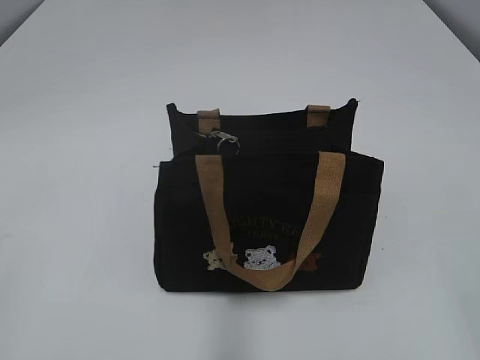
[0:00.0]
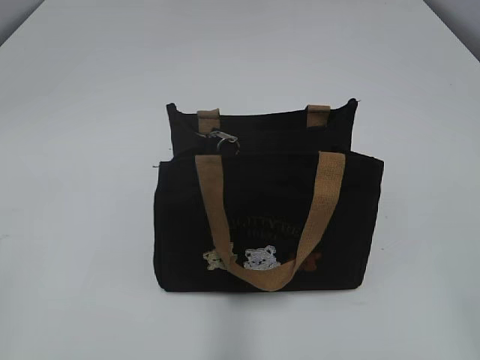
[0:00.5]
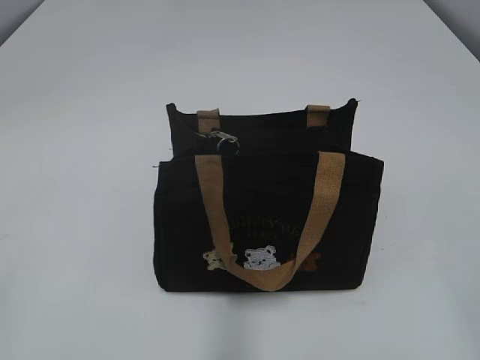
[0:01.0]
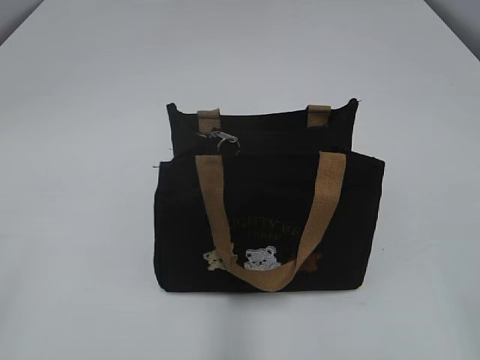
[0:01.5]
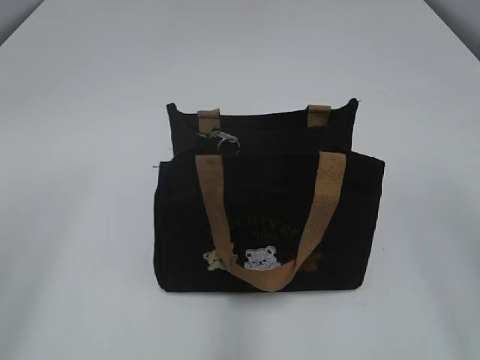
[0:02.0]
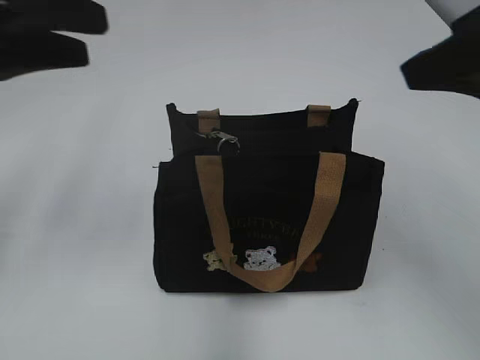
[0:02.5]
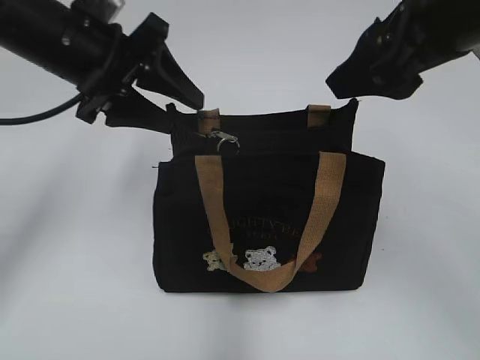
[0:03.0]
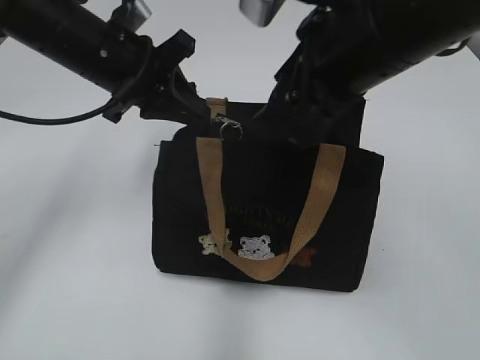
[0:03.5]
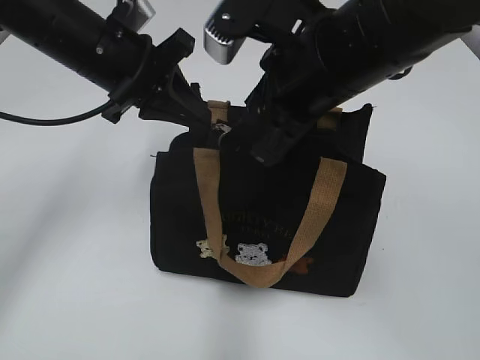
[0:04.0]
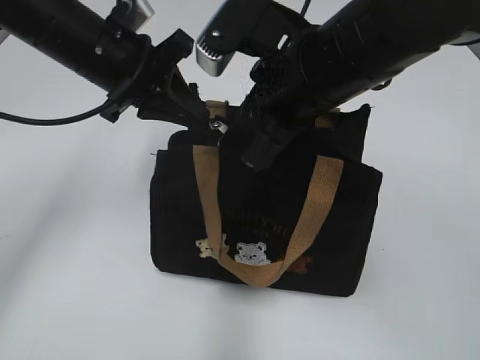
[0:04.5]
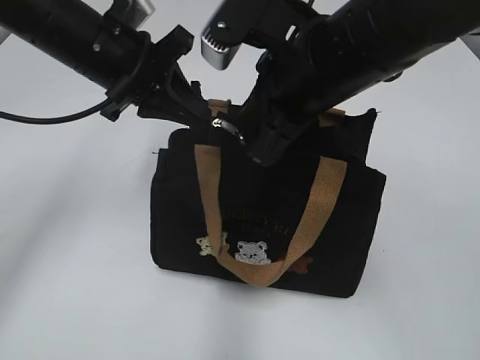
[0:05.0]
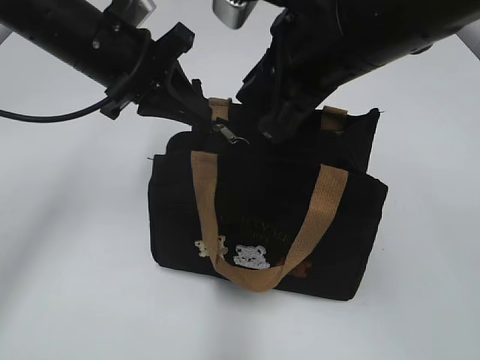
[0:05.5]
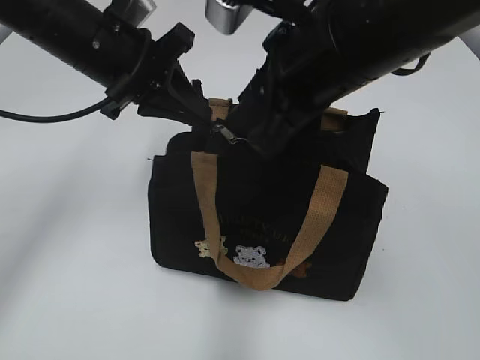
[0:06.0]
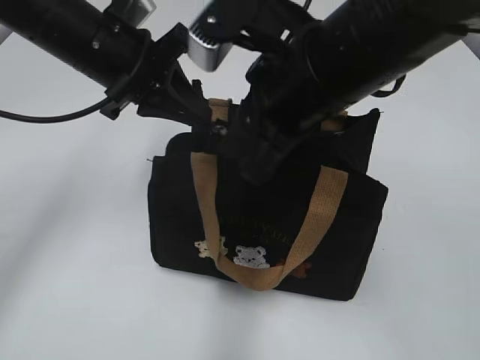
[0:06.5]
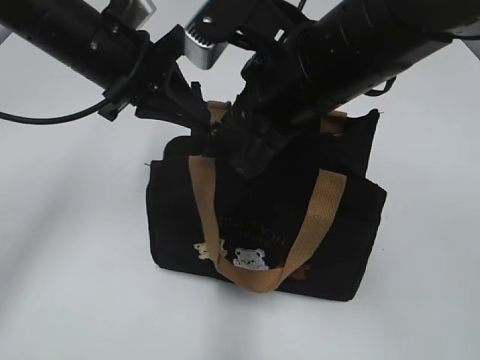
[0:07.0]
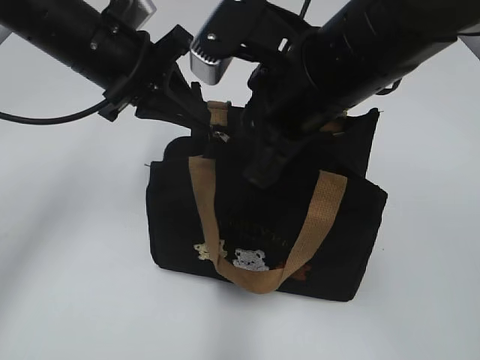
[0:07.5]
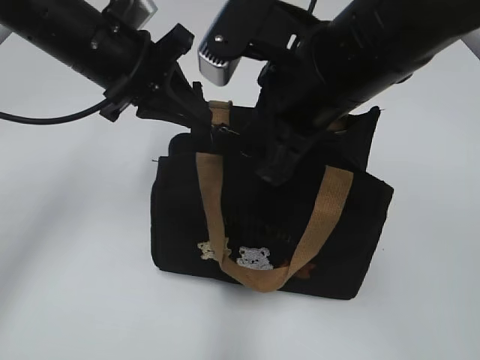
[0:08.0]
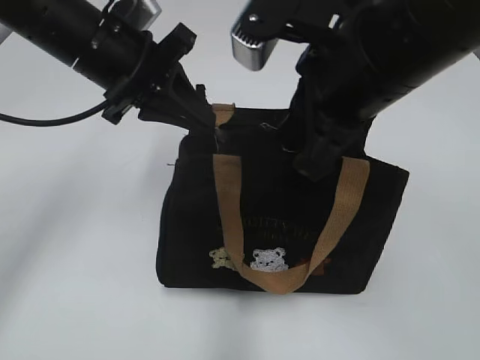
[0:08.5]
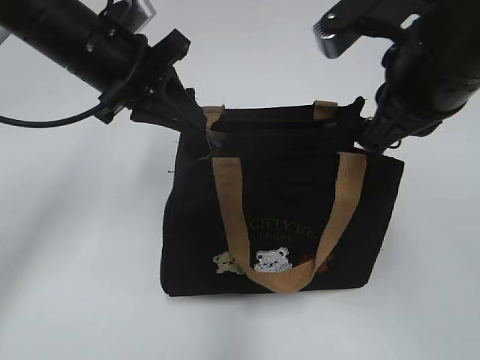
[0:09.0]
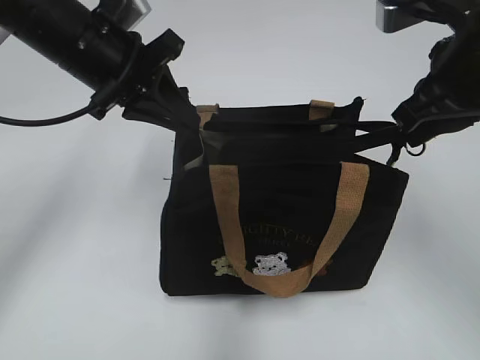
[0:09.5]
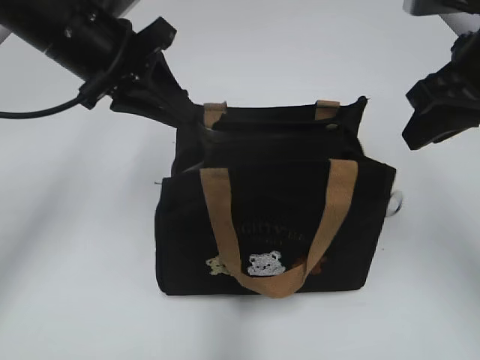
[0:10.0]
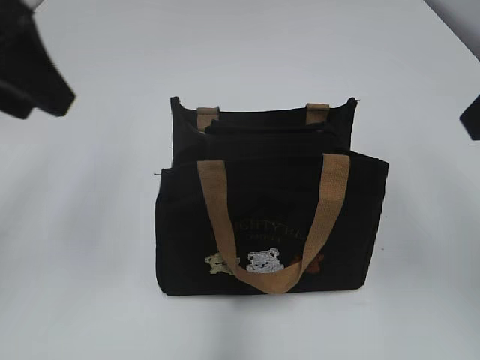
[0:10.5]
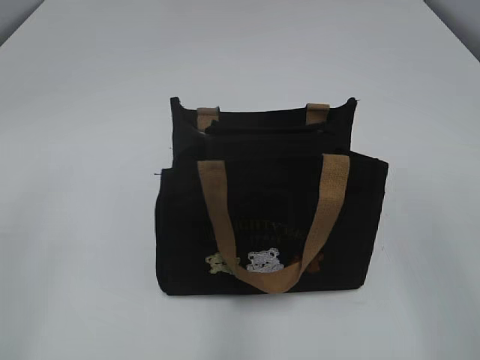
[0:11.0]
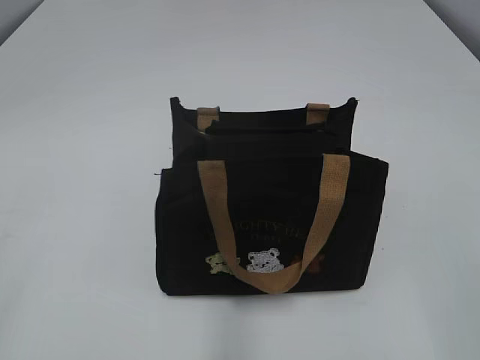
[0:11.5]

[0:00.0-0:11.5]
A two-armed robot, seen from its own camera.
Step, 0:00.0 to 0:09.5: Pull open the zipper with your right hand.
0:02.0 to 0:04.0: The right gripper heads forward and to the left, covering some 30 cm; the left gripper shifts roughly 35 cm forward and to the right, and closes.
0:04.0 to 0:06.0: The right gripper closes, then reopens.
0:06.0 to 0:07.5: The grippers make only small movements.
0:07.5 to 0:09.5: The right gripper is displaced to the right by roughly 15 cm, and closes its fingers.
0:09.5 to 0:11.5: The right gripper moves backward, approximately 25 cm, and opens up, while the left gripper shifts about 40 cm backward and to the left, and opens.

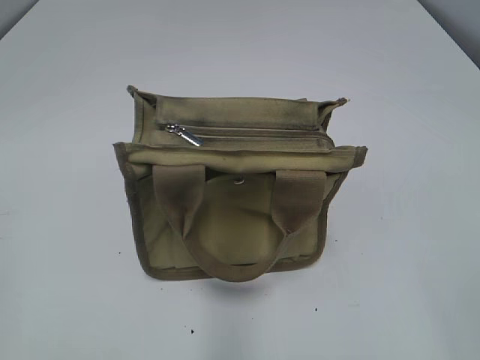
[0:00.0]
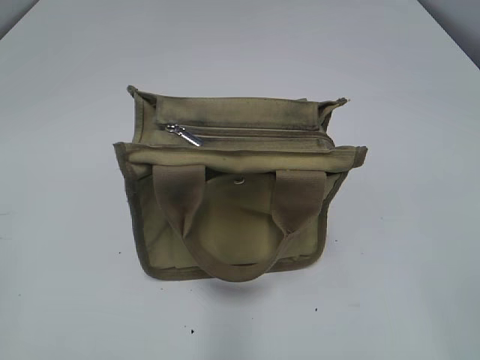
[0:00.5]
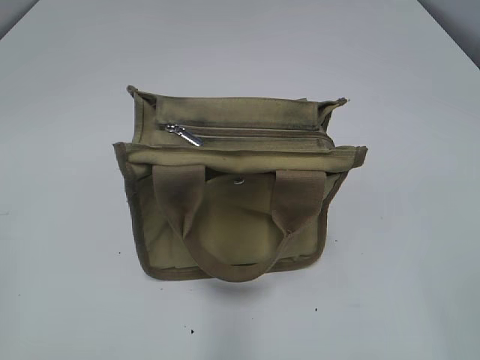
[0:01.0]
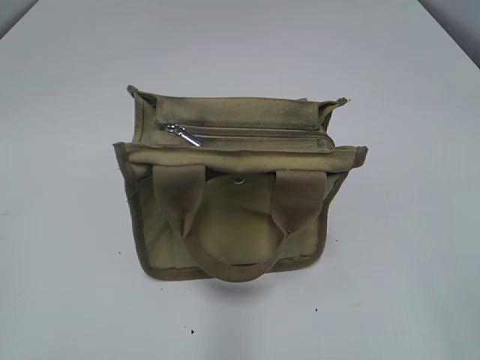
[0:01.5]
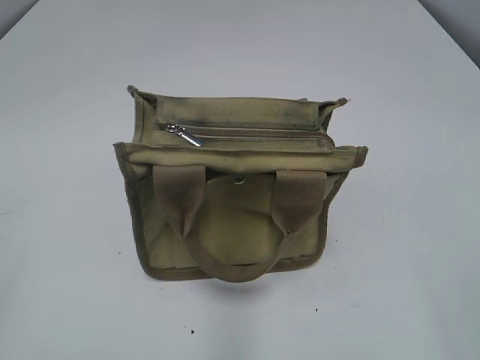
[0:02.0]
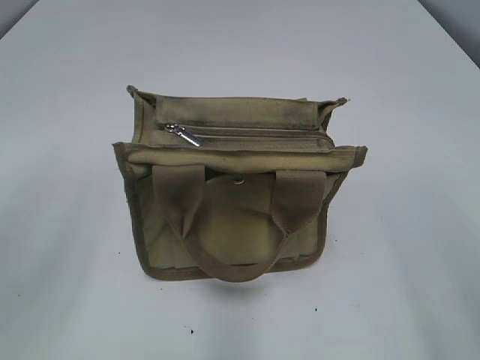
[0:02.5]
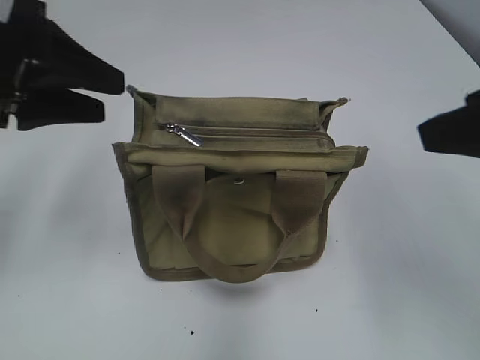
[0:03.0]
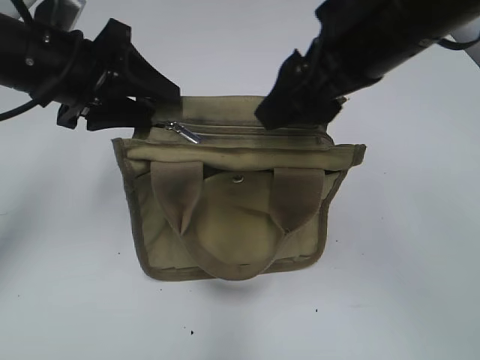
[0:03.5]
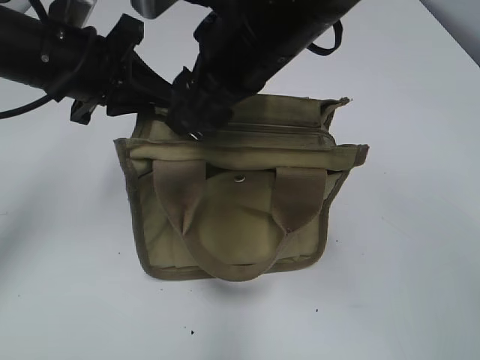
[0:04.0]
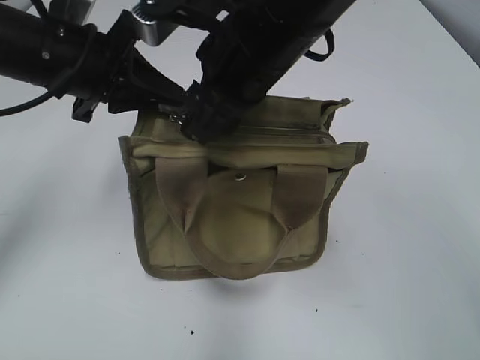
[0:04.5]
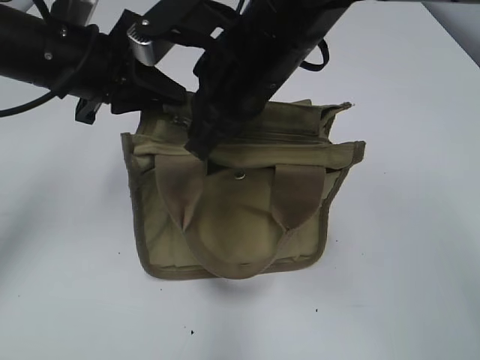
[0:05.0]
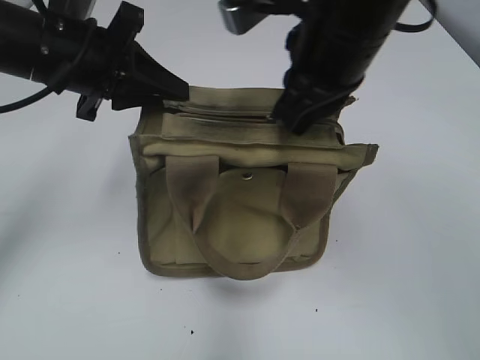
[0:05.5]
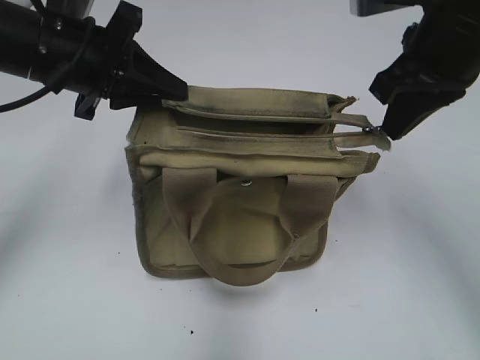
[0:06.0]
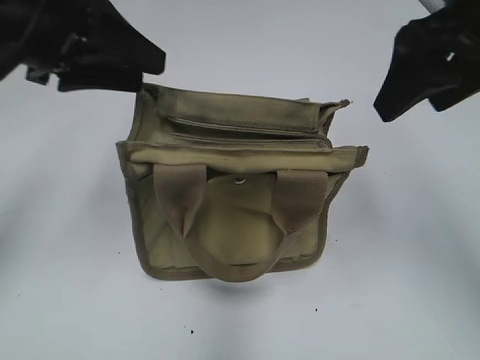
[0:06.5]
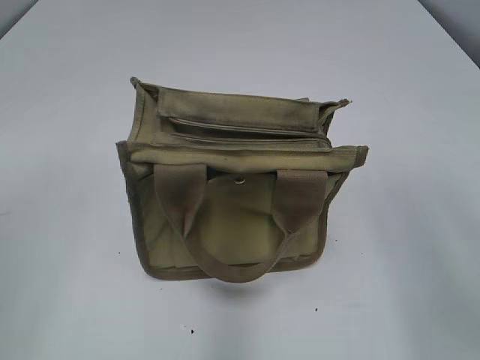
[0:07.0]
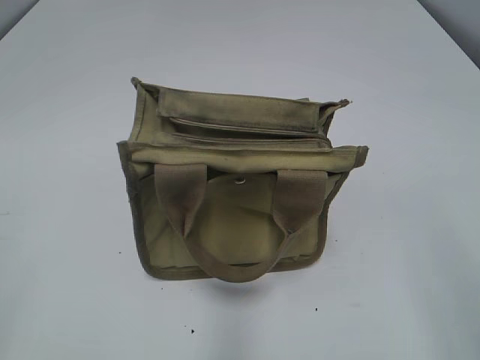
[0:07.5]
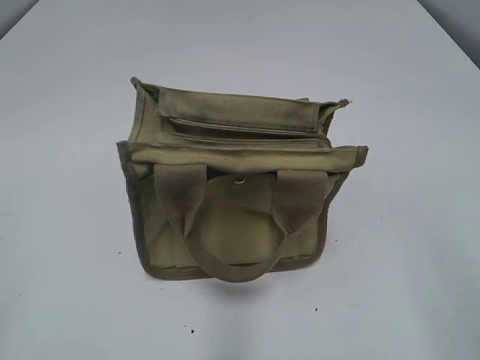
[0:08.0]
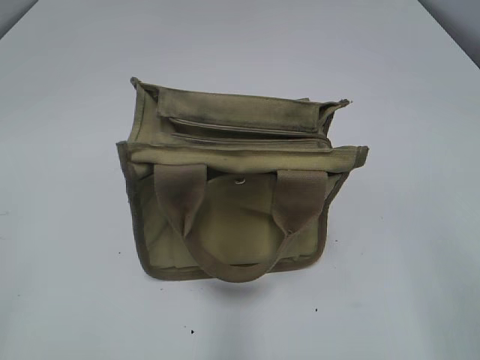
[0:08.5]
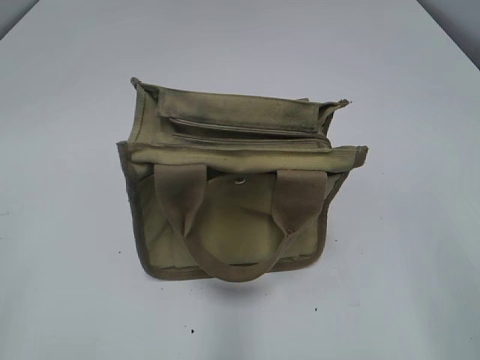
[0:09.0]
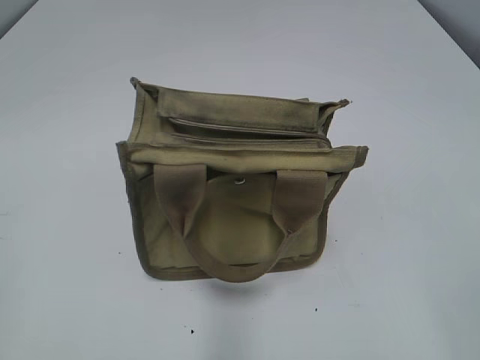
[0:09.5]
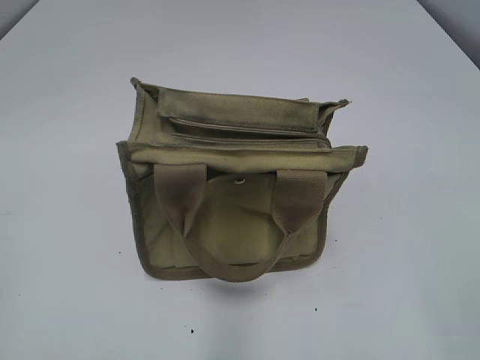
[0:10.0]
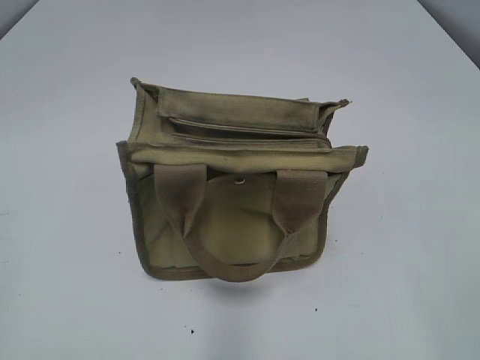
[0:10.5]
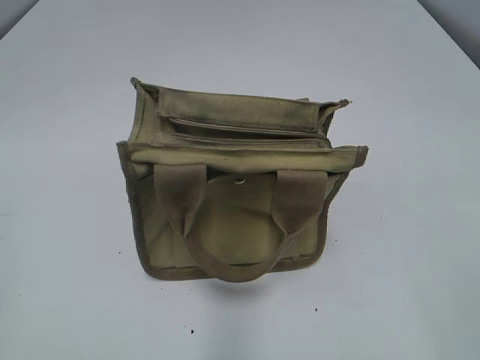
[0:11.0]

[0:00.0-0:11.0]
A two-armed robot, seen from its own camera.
Step, 0:00.0 to 0:06.0: Pull open the zipper with your right hand.
0:02.0 to 0:03.5: The left gripper is displaced forward and to the right by some 35 cm. The right gripper travels forward and to the left by roughly 30 cm.
0:03.5 to 0:05.5: The right gripper closes. The left gripper closes its fingers.
0:05.5 to 0:07.5: The right gripper is displaced backward and to the right by approximately 30 cm, and opens up. Meanwhile the left gripper shifts roughly 35 cm backward and to the left, and opens its fingers.
